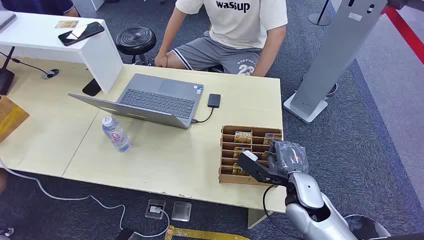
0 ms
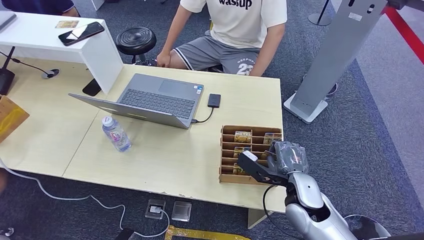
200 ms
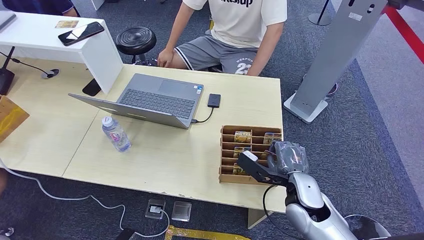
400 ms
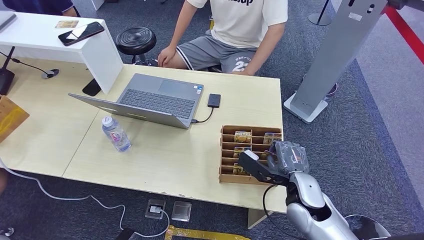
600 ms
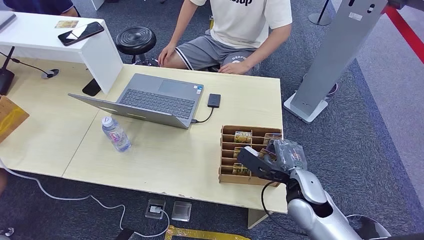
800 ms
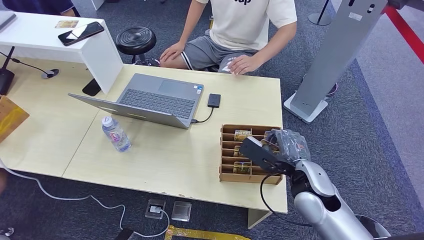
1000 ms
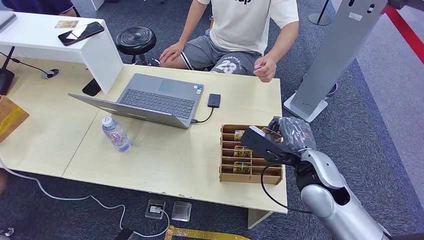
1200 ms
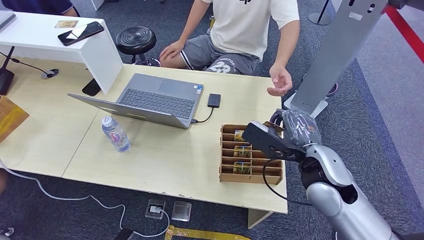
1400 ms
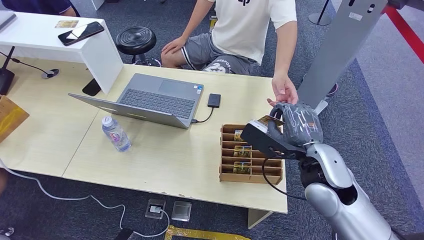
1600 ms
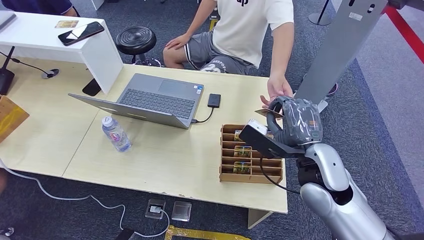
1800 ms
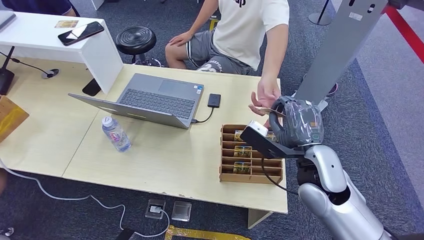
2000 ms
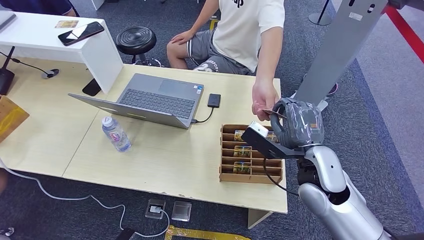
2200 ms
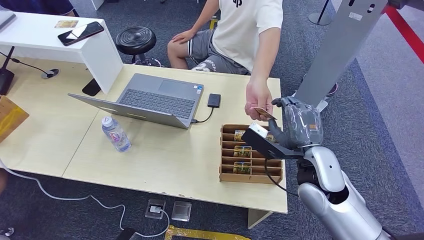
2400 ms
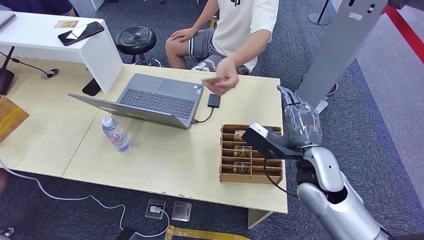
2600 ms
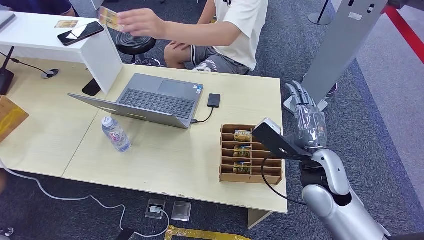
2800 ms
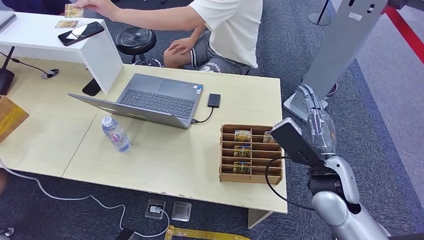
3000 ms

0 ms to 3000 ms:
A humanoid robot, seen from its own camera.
Step, 0 ms to 1400 ms: Pick up the key card from the card box.
Step, 1600 ms to 3000 ms: Hand the key card to the target.
